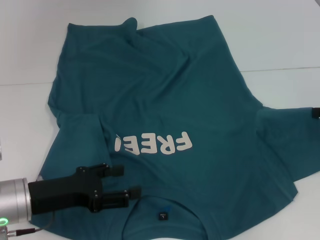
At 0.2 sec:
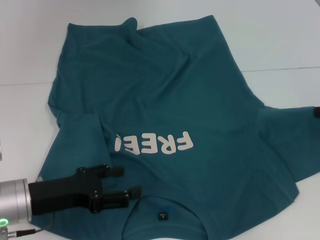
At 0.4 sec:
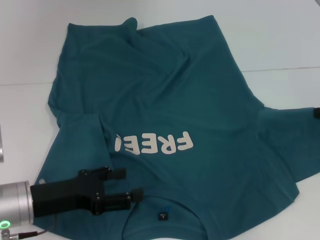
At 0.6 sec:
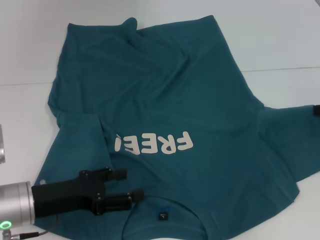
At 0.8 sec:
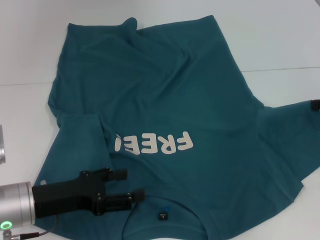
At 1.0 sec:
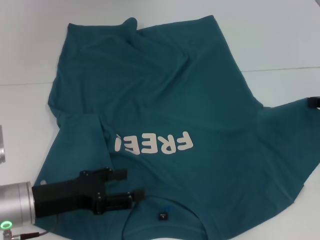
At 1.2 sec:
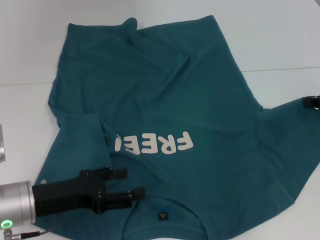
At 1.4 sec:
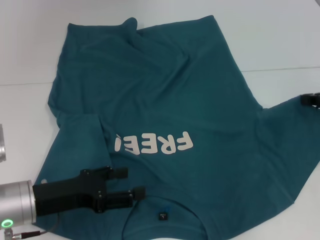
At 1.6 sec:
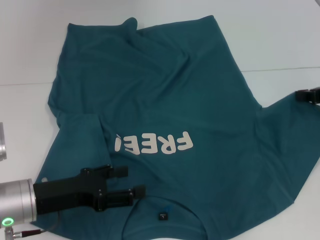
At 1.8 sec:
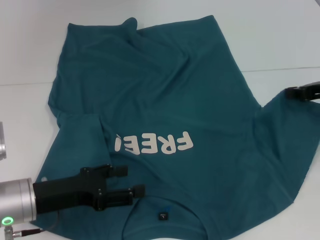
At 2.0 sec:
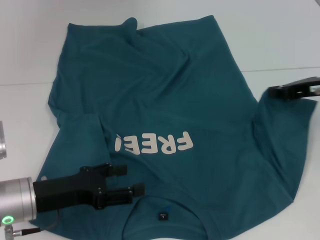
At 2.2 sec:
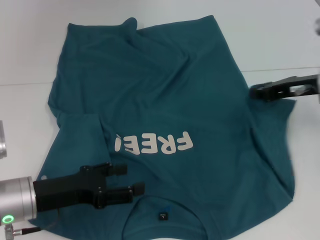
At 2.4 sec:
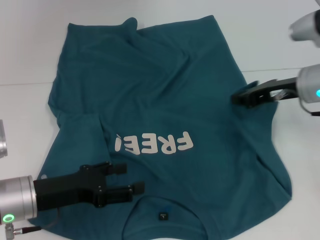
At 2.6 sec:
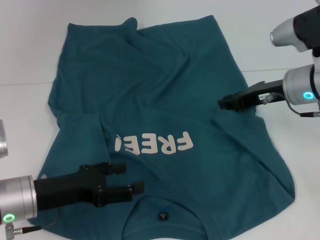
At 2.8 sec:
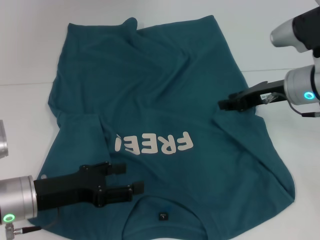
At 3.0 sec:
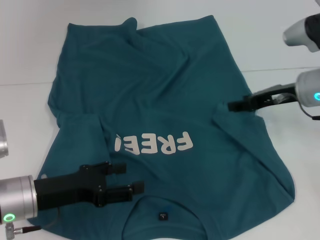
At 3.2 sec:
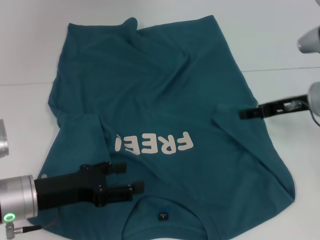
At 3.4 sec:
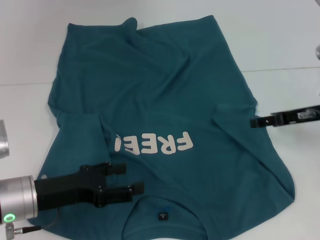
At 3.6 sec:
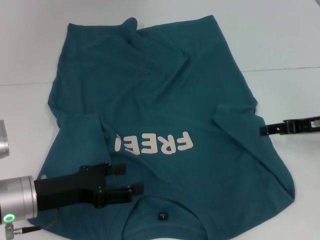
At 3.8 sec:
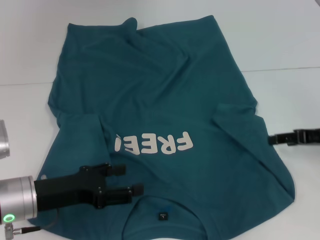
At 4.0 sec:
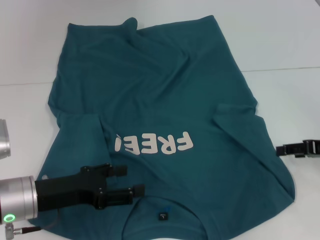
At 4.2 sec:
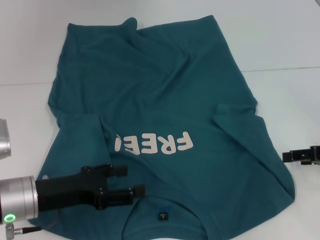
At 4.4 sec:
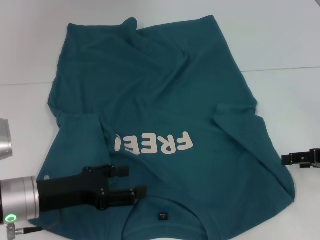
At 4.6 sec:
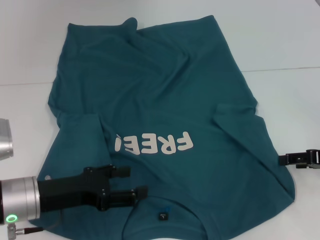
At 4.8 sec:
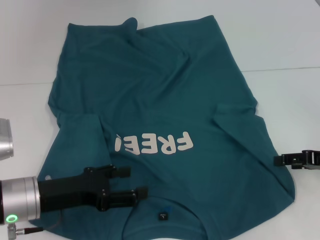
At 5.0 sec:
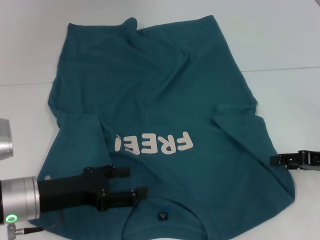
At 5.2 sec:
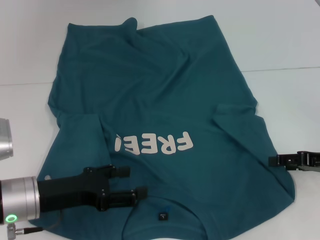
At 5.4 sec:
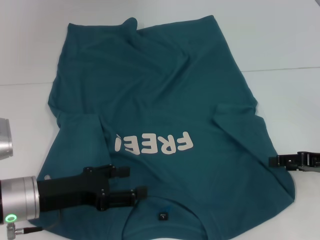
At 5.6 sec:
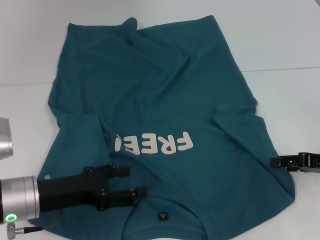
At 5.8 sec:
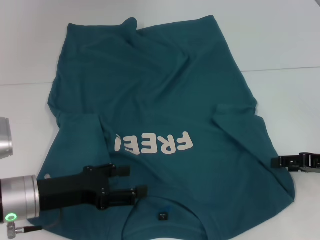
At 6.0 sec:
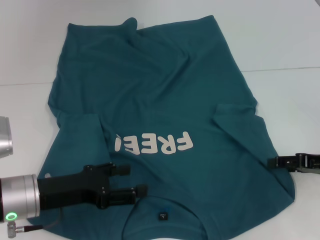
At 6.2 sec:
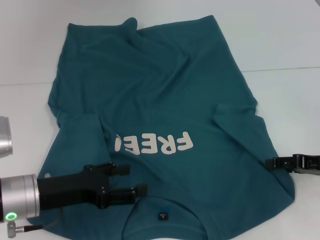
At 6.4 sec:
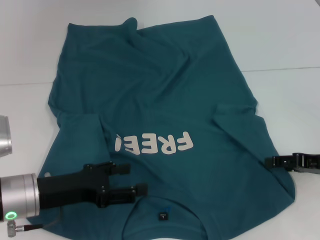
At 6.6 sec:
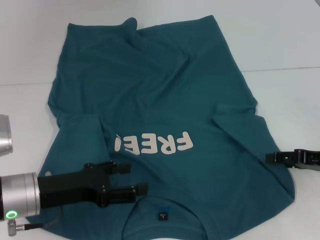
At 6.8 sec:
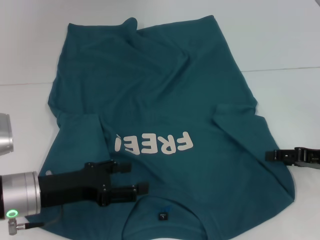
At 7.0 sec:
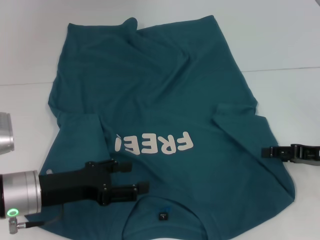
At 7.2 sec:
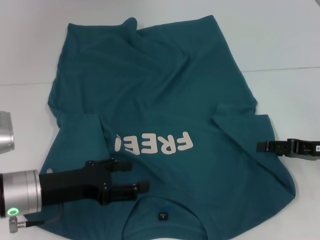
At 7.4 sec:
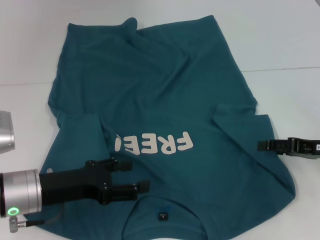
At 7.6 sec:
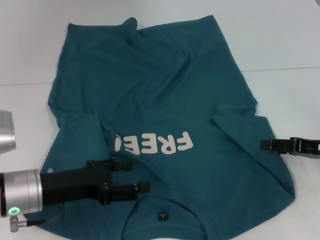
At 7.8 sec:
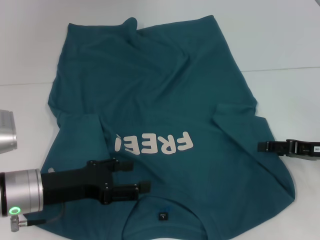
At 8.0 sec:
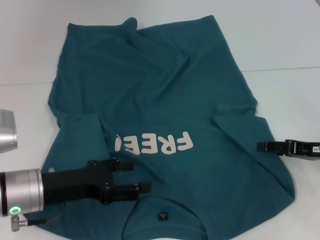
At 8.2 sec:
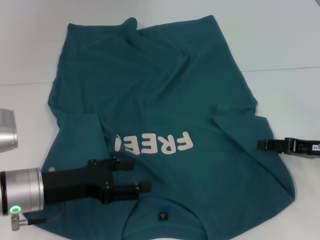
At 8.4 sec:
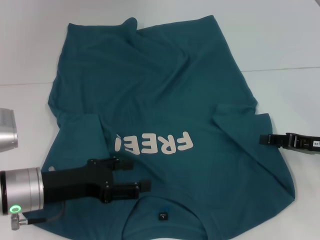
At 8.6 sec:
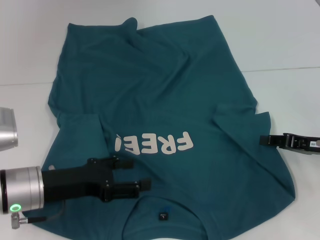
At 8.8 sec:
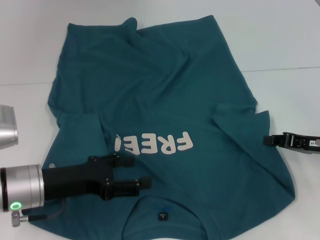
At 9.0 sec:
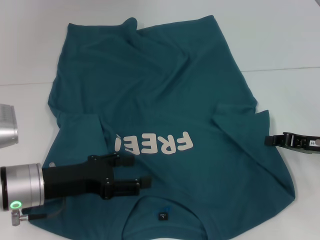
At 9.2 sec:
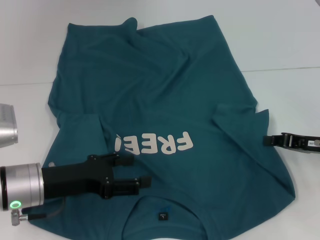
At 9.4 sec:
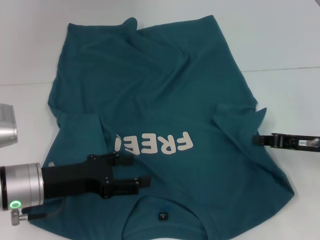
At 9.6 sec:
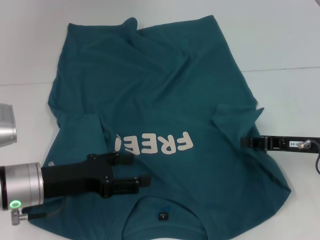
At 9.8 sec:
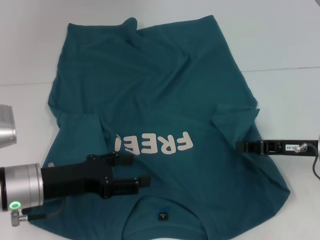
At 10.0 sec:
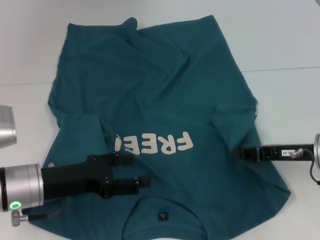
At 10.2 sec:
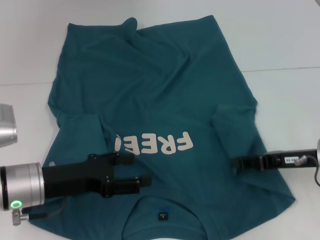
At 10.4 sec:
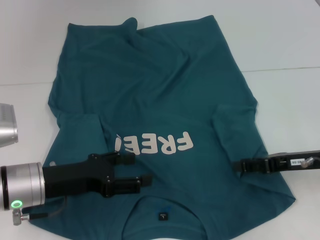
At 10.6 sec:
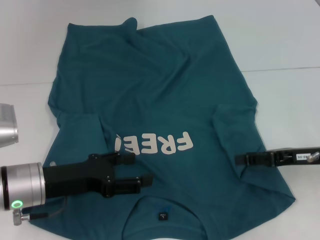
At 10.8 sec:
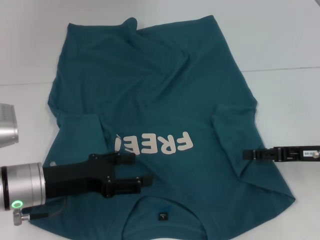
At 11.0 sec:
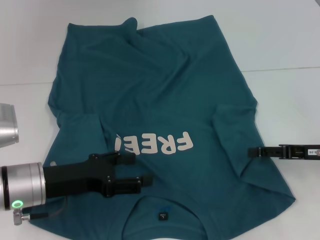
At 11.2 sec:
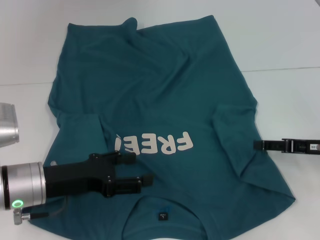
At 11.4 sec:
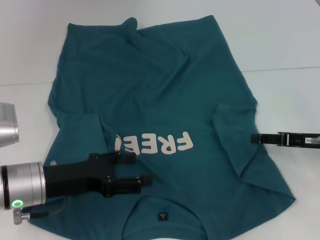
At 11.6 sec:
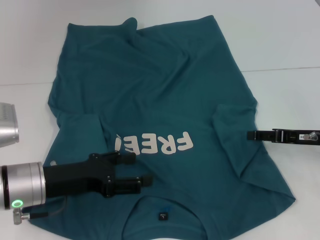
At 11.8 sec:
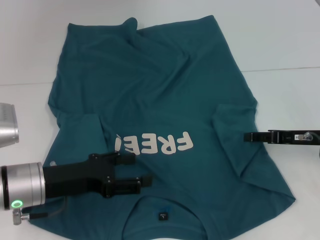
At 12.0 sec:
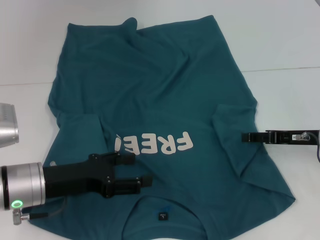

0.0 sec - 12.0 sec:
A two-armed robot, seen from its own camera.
0.0 sec - 1.6 sec: The grippers move only a little.
1.6 sec - 3.0 sec: The right gripper goes approximately 10 cm to the left, and opens its fingers.
3.0 sec - 4.4 sec: The right gripper shifts about 15 cm to the right and backward.
4.4 sec - 7.6 sec: The grippers move only a little.
7.6 sec - 9.0 sec: The right gripper closes.
10.4 sec - 12.0 sec: The right gripper opens its fingers.

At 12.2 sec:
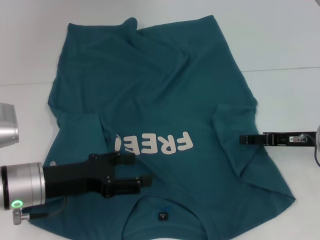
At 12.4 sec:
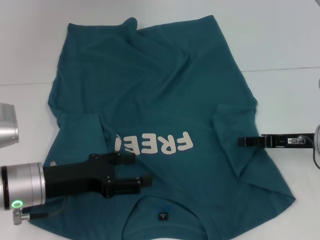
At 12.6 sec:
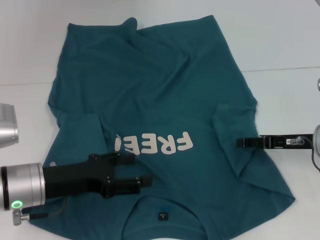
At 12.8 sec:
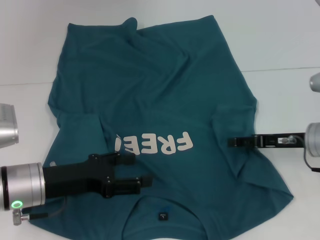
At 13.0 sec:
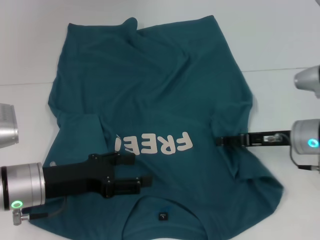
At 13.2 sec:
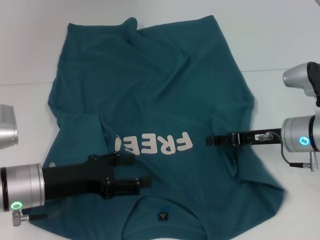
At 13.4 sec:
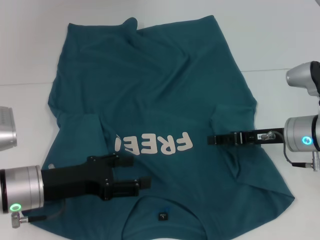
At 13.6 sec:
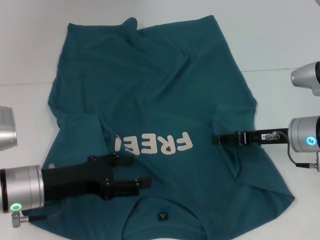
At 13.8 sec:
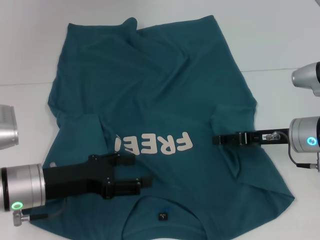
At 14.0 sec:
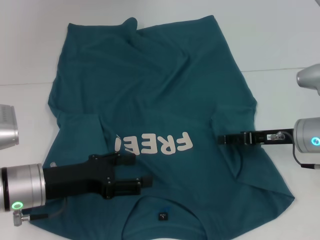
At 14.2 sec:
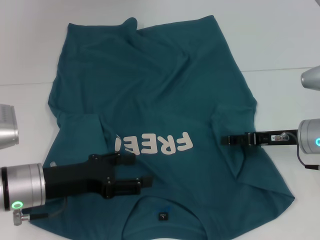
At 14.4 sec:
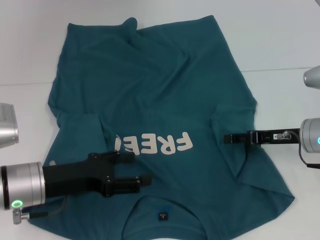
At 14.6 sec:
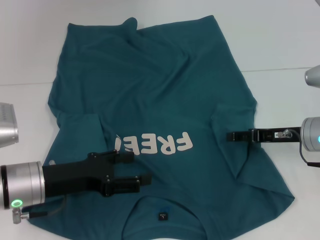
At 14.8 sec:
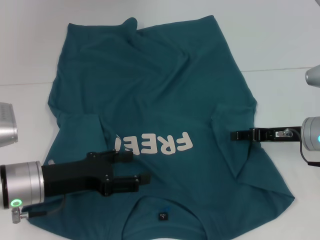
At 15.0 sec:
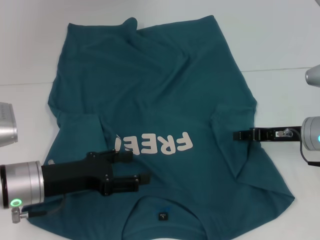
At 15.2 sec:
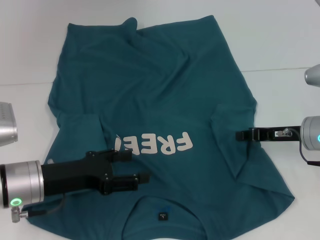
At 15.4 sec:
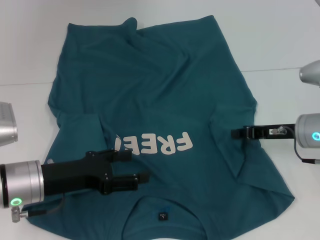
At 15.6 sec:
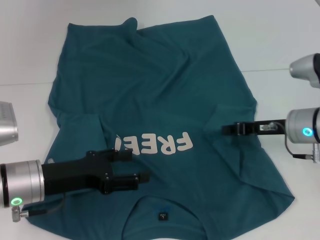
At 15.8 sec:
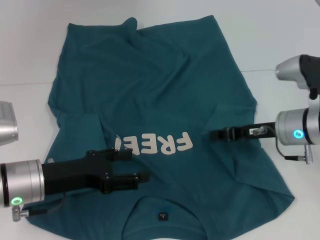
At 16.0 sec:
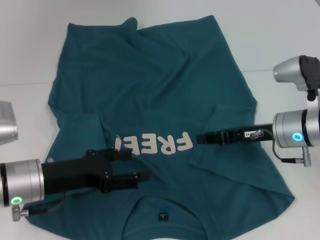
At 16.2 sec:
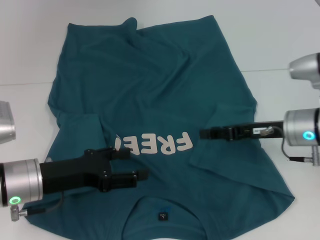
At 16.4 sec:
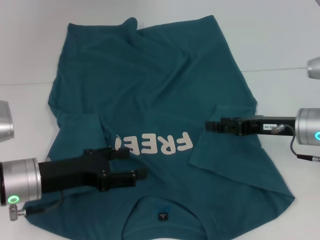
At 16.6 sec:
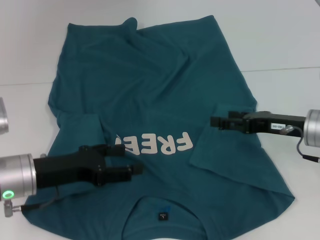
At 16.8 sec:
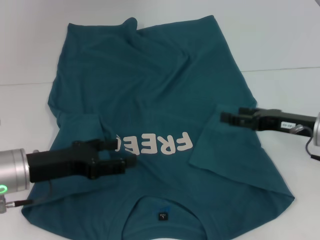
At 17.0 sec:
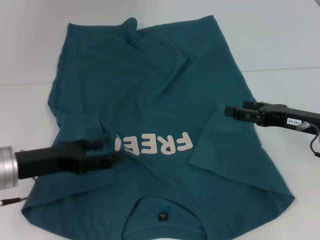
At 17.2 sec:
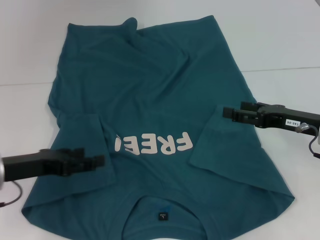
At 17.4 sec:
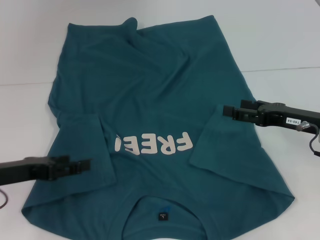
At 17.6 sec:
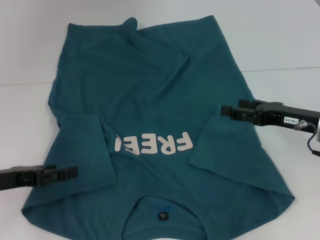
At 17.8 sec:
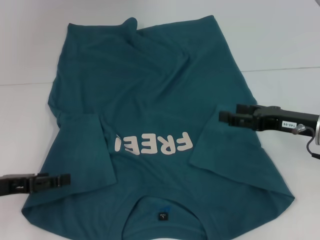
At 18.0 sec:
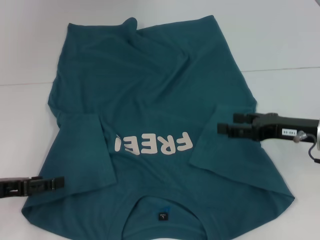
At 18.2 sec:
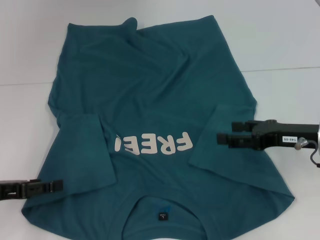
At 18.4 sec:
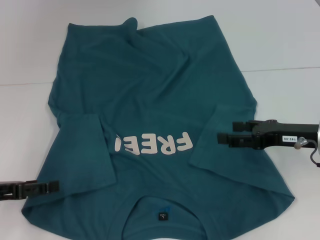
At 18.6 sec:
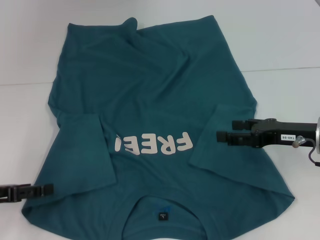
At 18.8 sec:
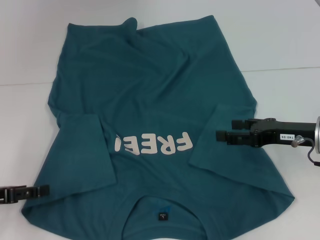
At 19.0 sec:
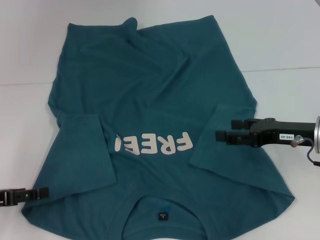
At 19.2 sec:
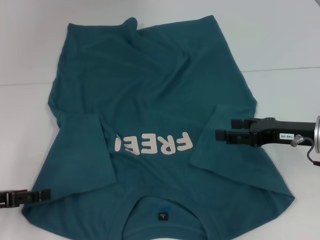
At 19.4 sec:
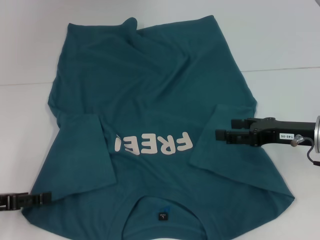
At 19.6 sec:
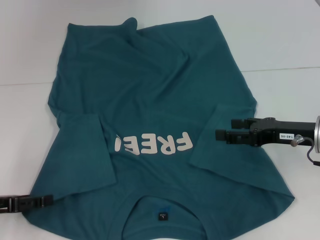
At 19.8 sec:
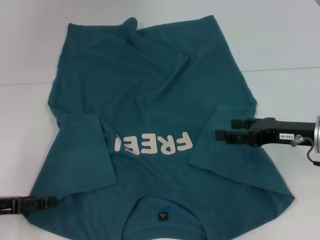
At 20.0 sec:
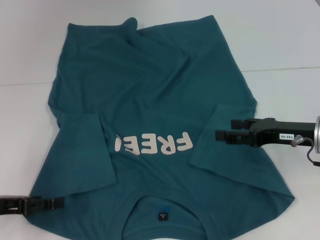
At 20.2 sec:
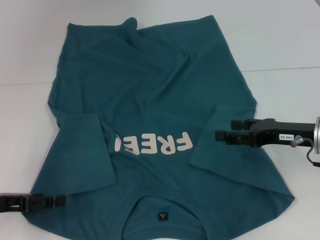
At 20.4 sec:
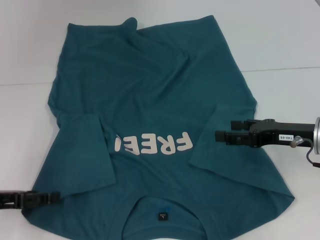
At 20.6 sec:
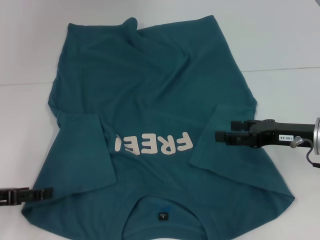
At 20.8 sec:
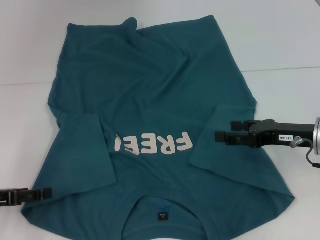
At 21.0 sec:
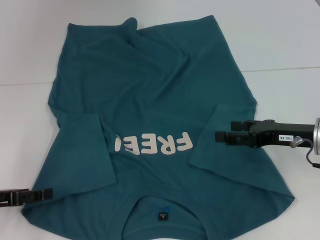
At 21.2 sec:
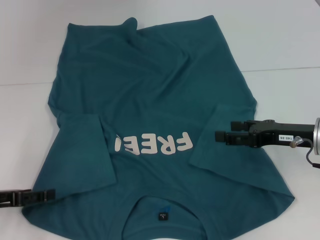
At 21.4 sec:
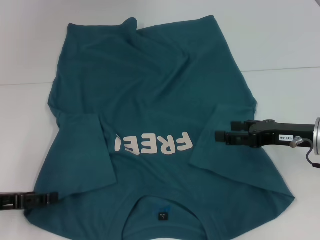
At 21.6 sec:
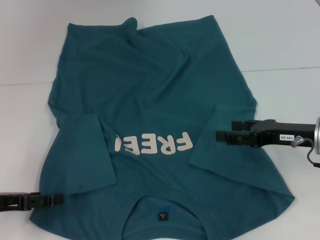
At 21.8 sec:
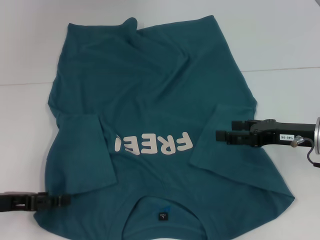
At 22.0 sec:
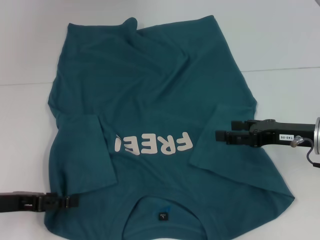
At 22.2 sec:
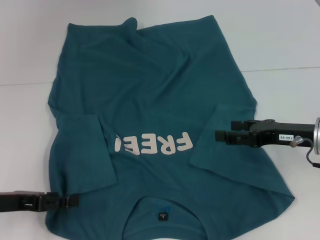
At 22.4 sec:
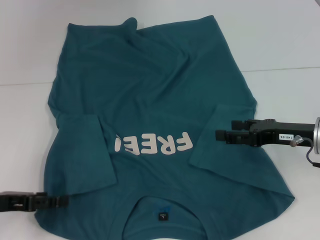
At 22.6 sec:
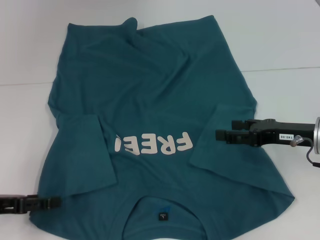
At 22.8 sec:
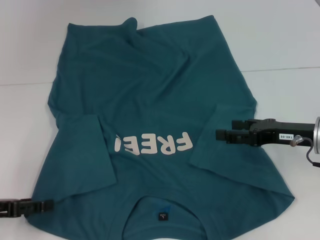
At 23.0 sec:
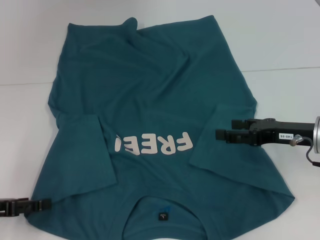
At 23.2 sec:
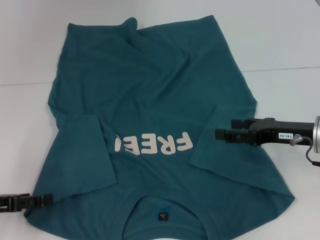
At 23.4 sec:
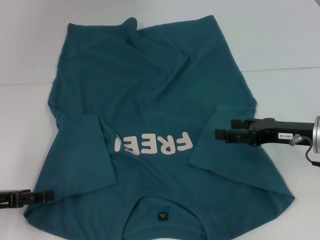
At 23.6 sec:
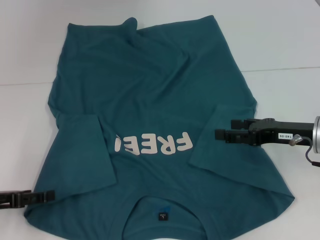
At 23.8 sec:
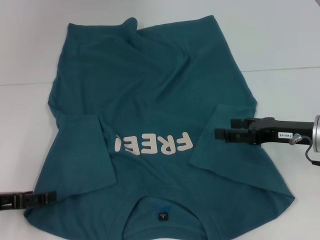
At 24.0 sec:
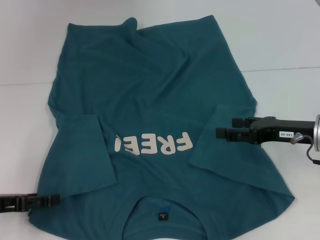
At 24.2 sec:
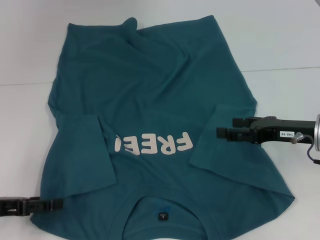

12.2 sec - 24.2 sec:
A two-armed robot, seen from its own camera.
Step, 12.2 sec - 16.6 sec: Fold the bottom right sleeve to the right.
12.2 sec - 13.8 sec: The grippers make only small movements.
13.8 sec - 15.2 sec: The right gripper closes up.
15.2 sec - 16.6 sec: The right gripper opens up.
16.6 sec - 18.2 sec: The left gripper heads to the left, covering about 10 cm.
18.2 sec - 19.8 sec: The grippers stay close to where they were, moving slightly.
19.8 sec - 21.2 sec: Both grippers stay put.
21.2 sec - 24.2 sec: The grippers make only small movements.
